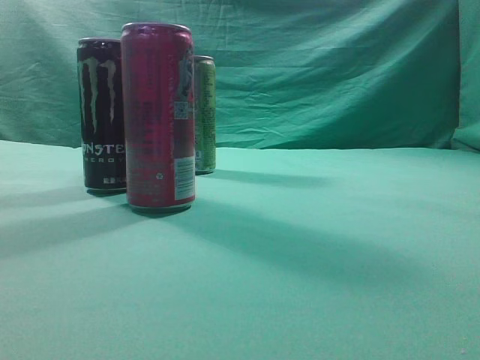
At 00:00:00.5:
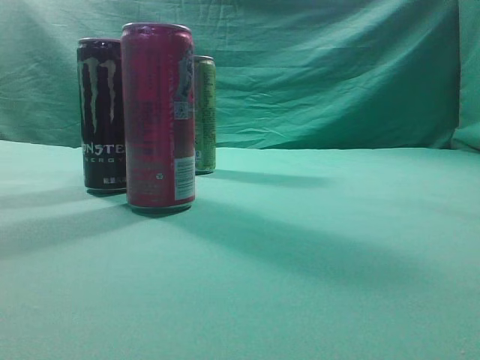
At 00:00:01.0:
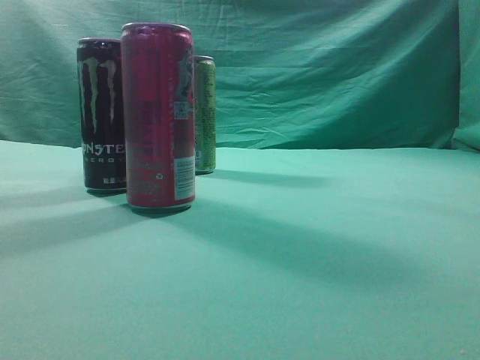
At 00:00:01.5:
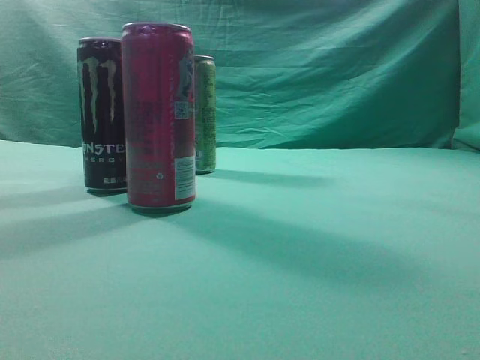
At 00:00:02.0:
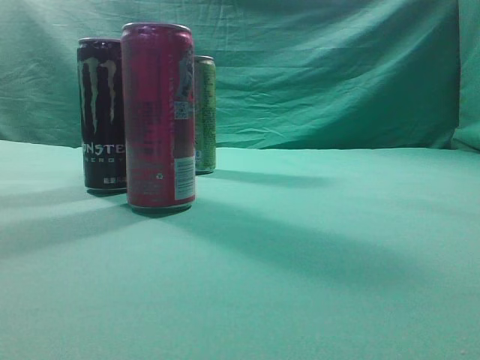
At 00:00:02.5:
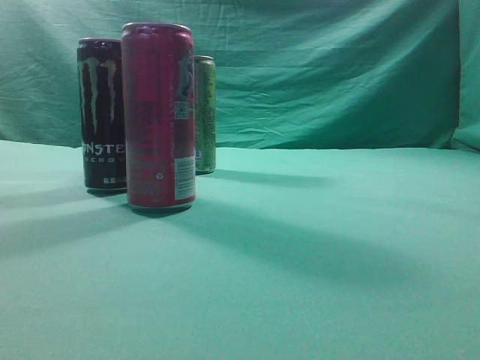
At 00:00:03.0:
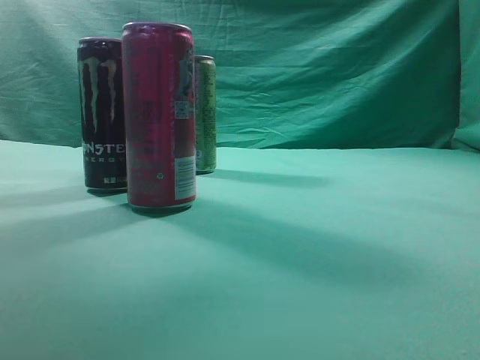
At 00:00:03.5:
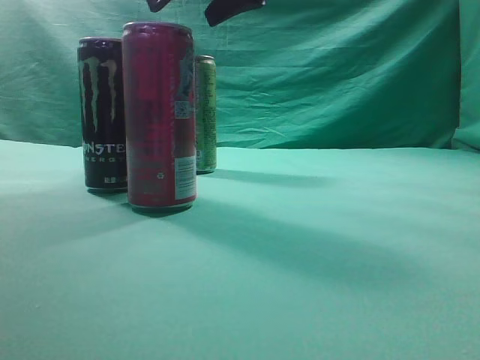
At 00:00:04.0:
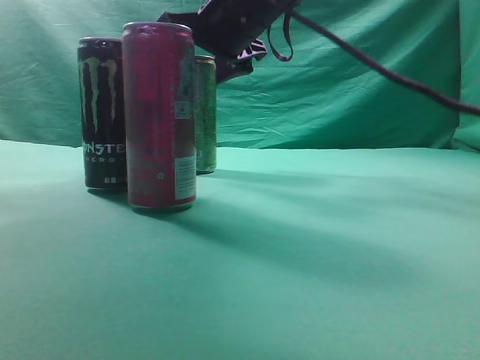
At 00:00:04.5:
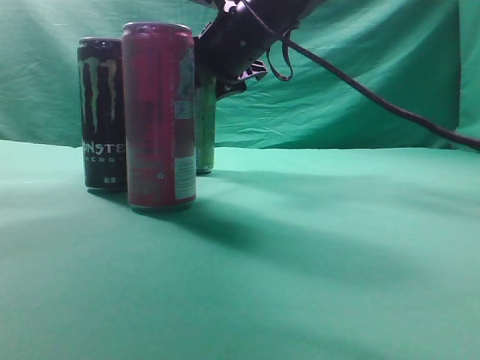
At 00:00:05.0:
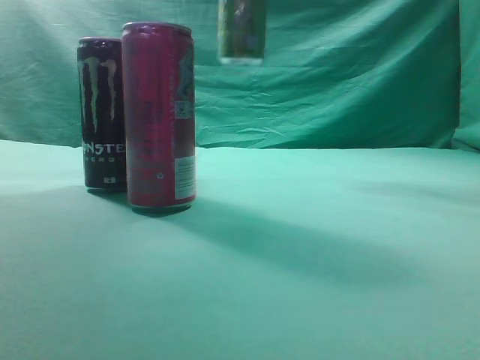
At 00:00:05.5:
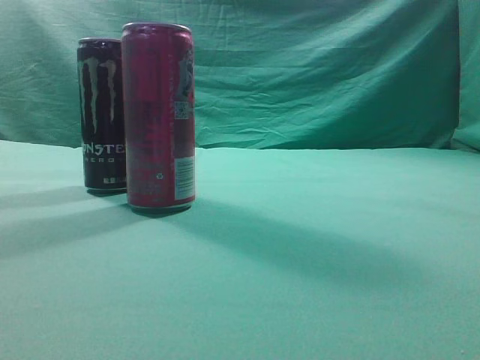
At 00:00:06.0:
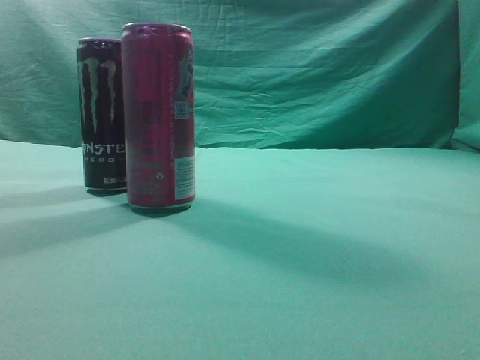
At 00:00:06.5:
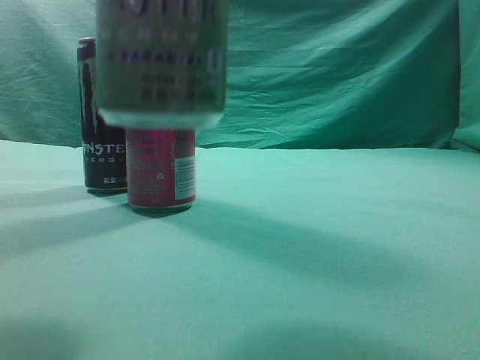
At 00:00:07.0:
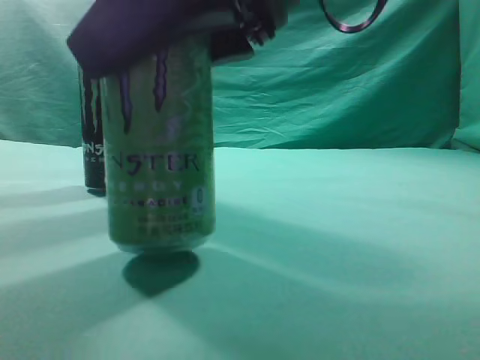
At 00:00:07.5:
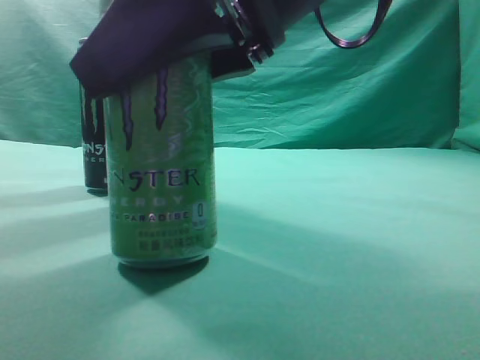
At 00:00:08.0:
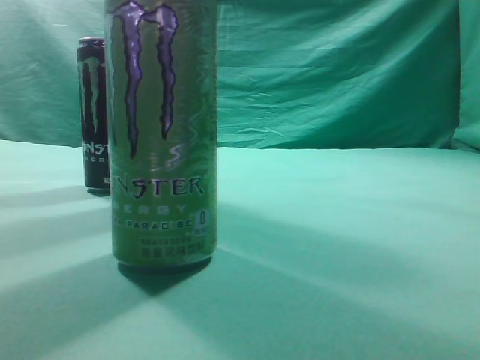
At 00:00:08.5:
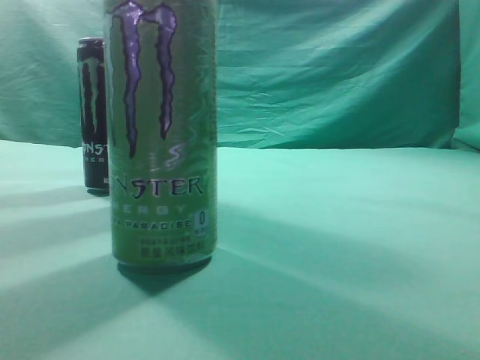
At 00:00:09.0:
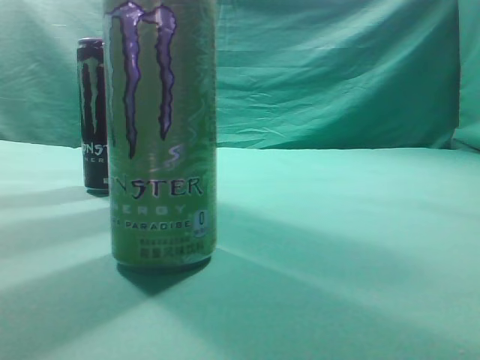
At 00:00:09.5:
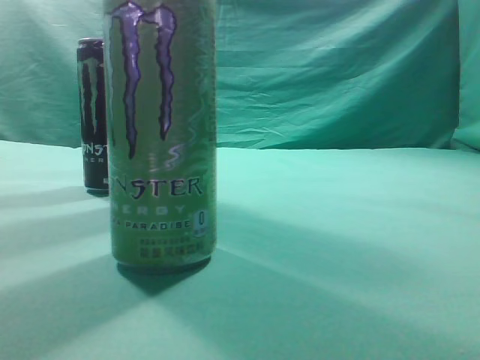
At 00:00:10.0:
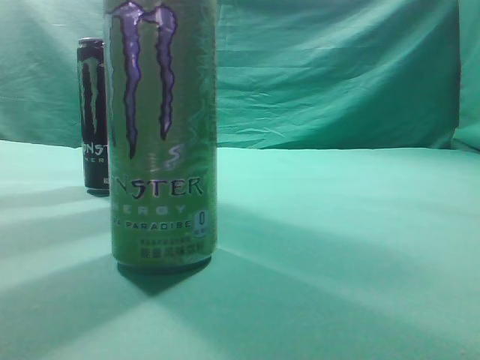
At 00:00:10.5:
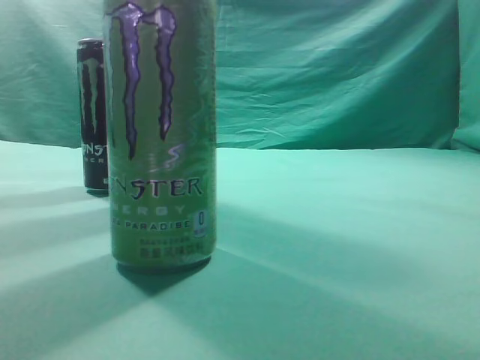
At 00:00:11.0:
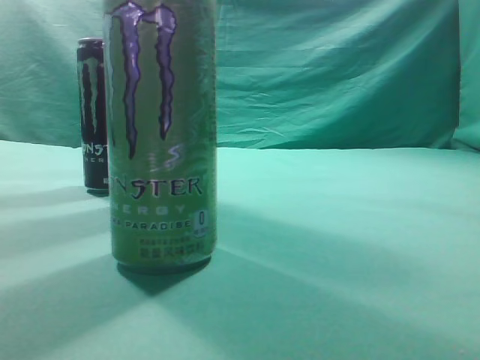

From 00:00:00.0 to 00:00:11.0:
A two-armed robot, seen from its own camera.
Task of the whole recording: move one drink among three beverages.
Step, from 00:00:00.0 to 00:00:04.5: Grasp the beverage bottle placed at the back of the desk.
Step, from 00:00:05.0 to 00:00:08.0: Place the beverage bottle to the front of the table.
From 00:00:02.0 to 00:00:03.5: The right gripper travels forward and to the left by some 40 cm, and opens up.
From 00:00:03.5 to 00:00:05.5: The right gripper is displaced upward, backward and to the right by about 25 cm.
From 00:00:05.5 to 00:00:07.5: The right gripper shifts about 25 cm downward.
From 00:00:07.5 to 00:00:09.0: The right gripper shifts approximately 30 cm to the right, upward and backward, and closes up.
